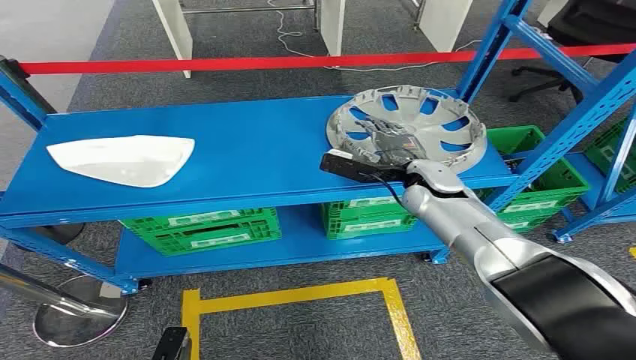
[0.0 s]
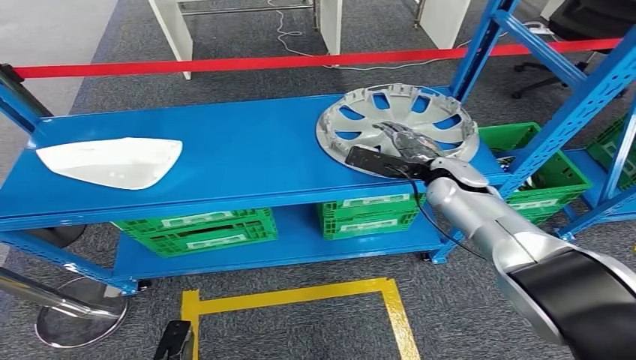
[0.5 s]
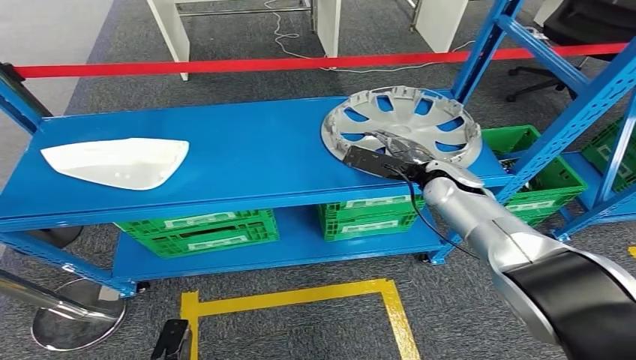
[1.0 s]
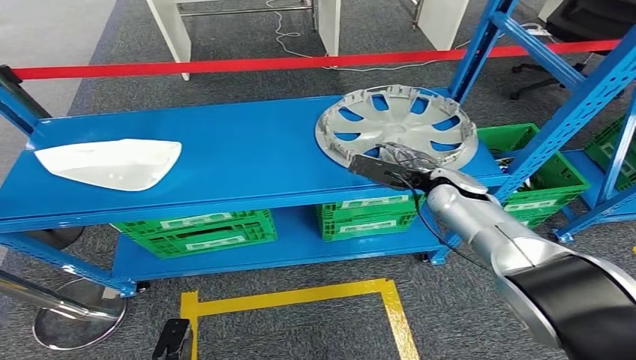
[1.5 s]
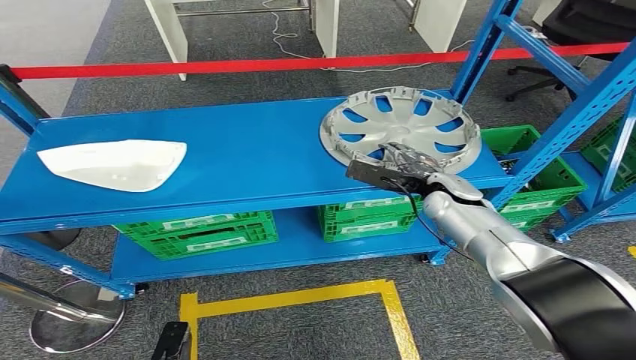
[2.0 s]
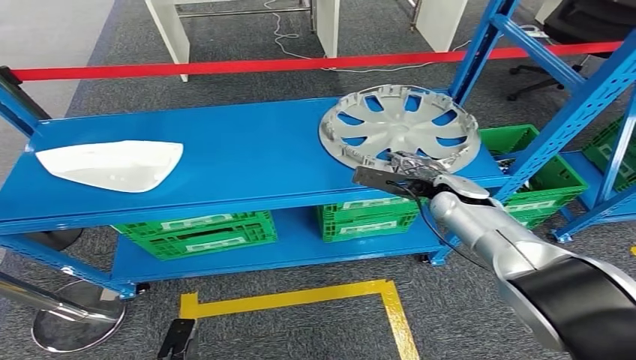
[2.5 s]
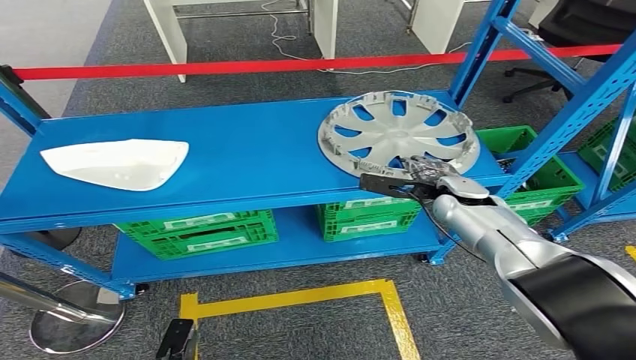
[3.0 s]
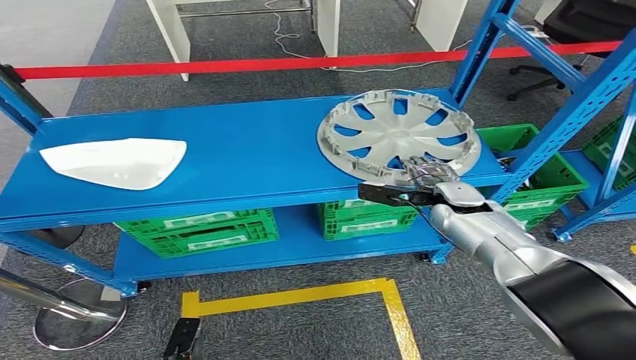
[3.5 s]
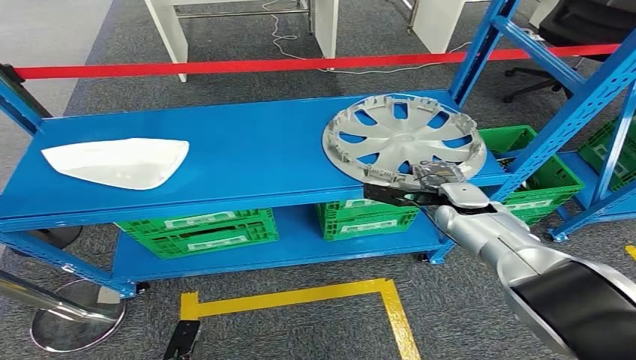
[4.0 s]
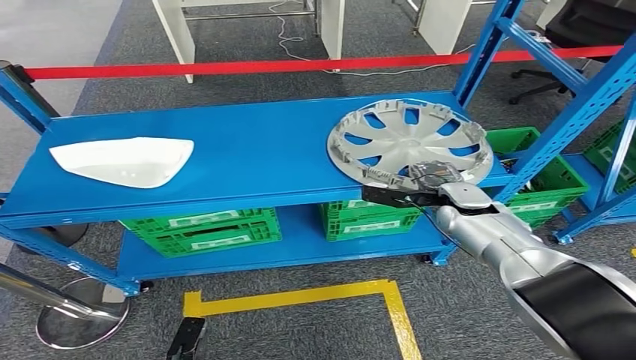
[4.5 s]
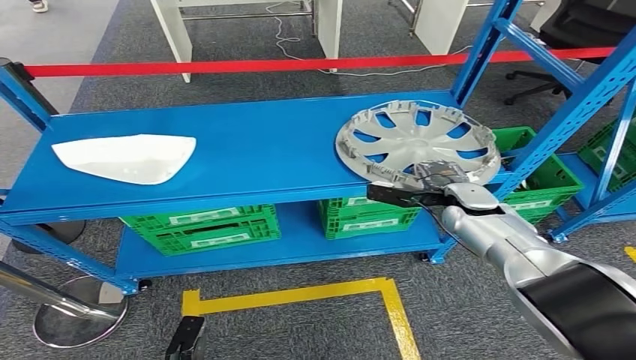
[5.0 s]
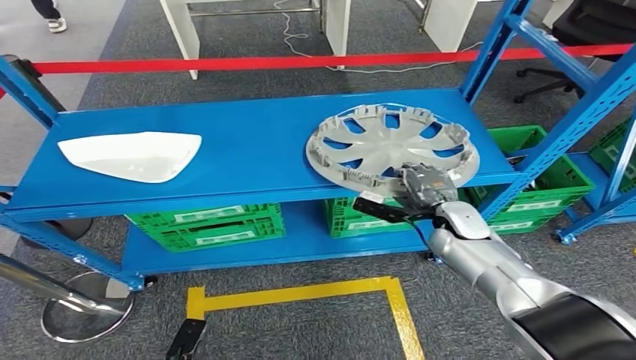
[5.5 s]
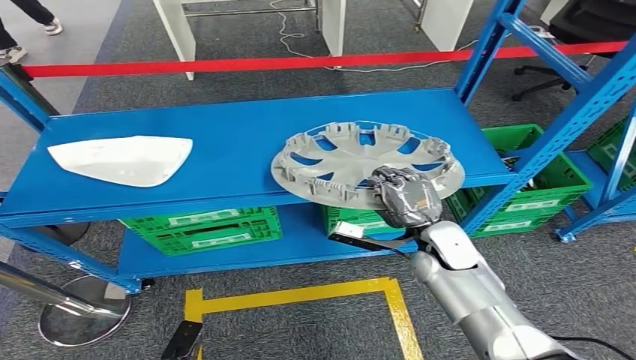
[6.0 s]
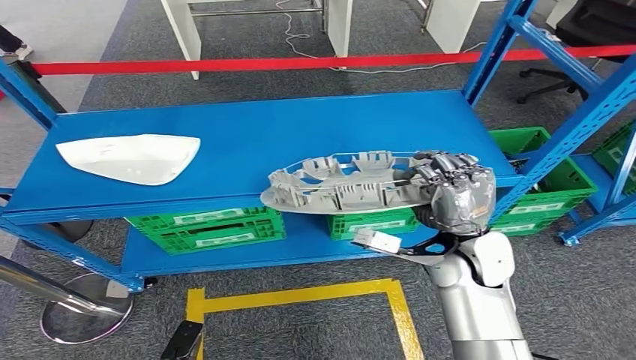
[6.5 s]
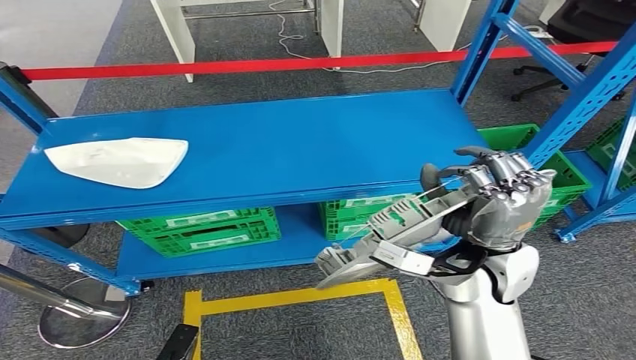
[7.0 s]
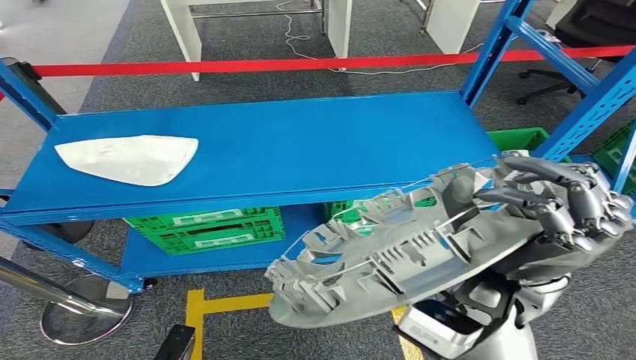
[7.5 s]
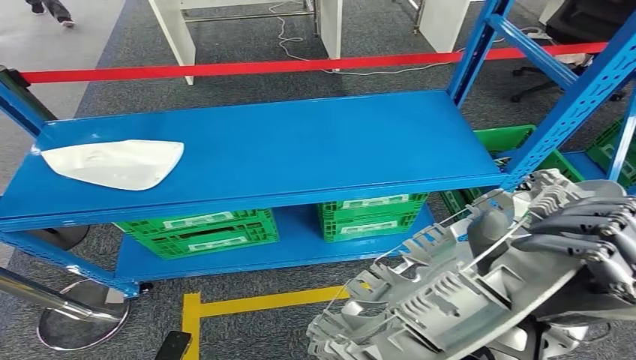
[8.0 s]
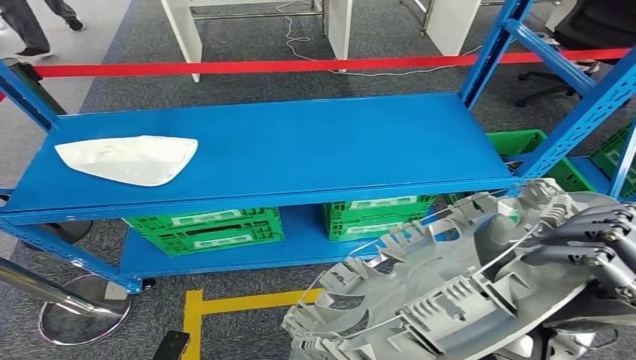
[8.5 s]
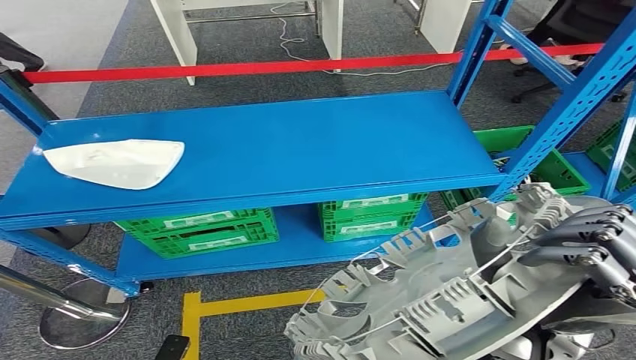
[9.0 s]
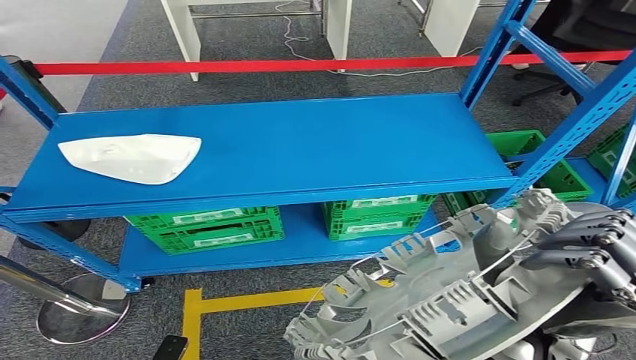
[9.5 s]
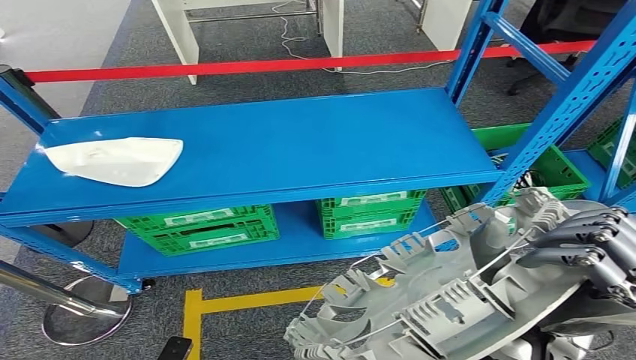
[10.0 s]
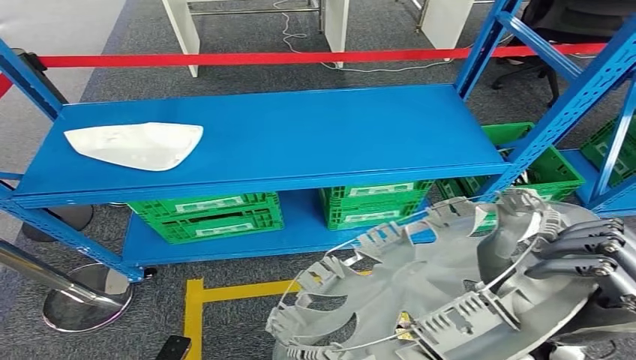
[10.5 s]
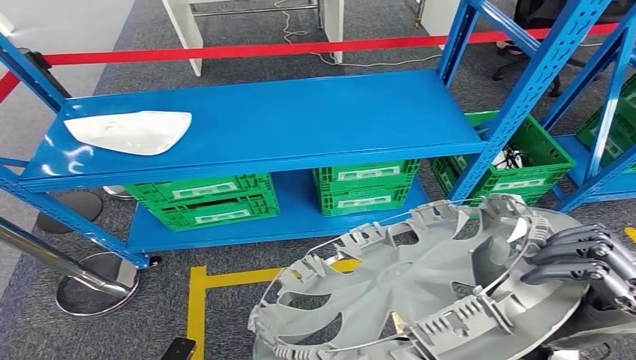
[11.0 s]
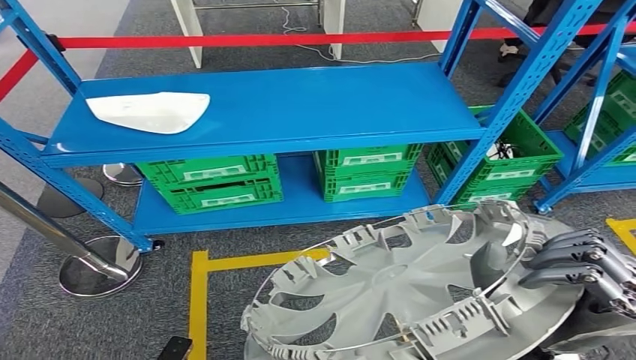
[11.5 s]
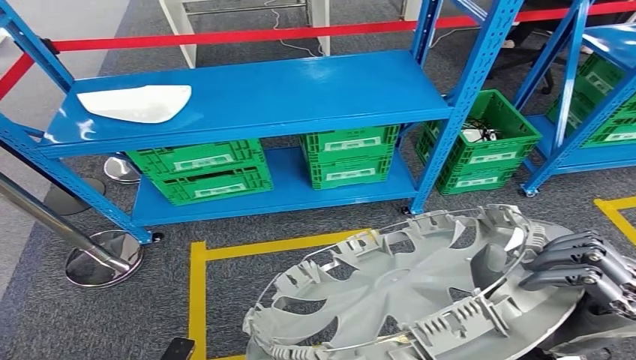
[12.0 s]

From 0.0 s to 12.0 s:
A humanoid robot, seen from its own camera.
Step, from 0.0 s to 6.5 s: Pick up the small component from the shelf.

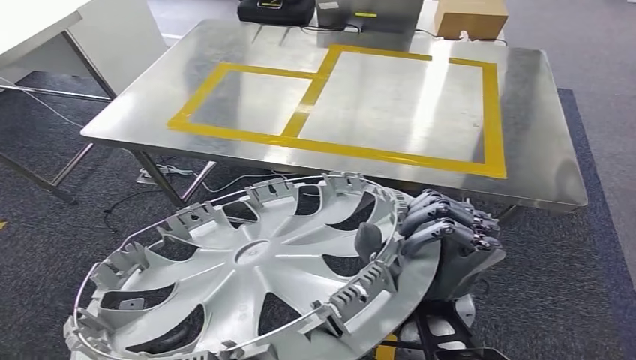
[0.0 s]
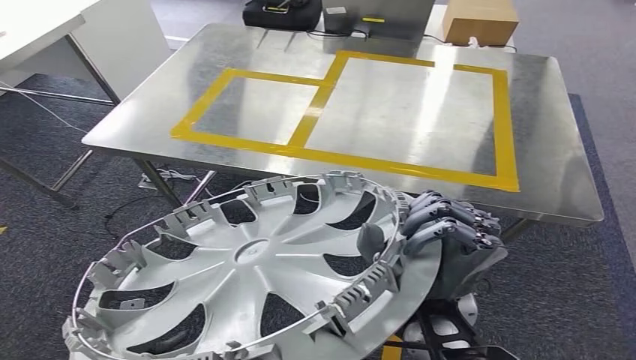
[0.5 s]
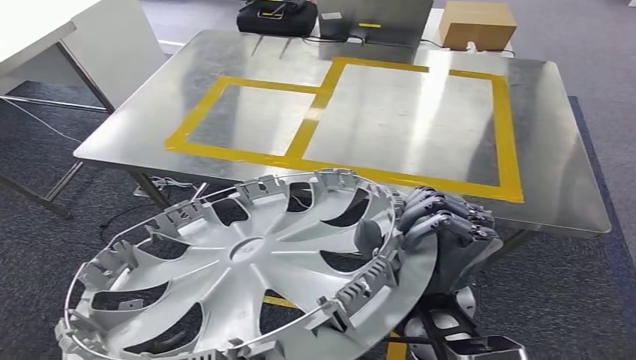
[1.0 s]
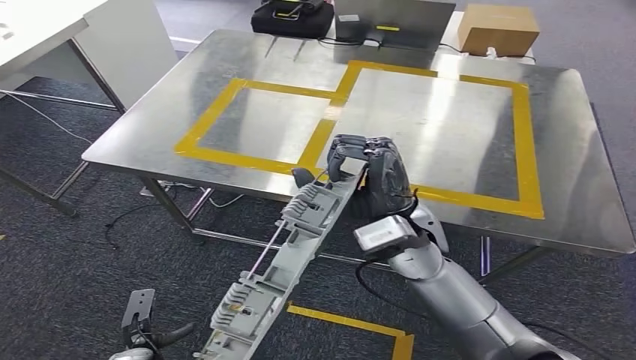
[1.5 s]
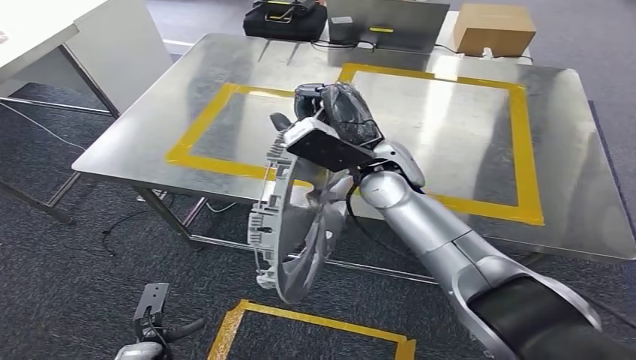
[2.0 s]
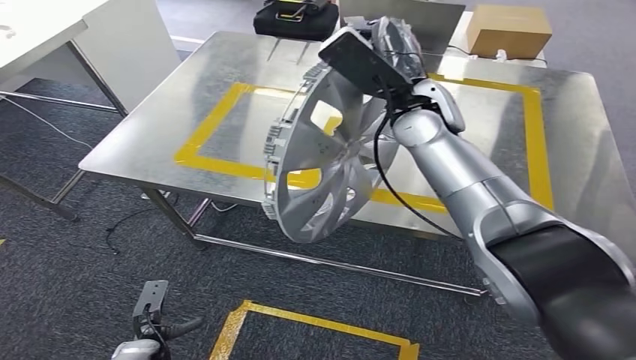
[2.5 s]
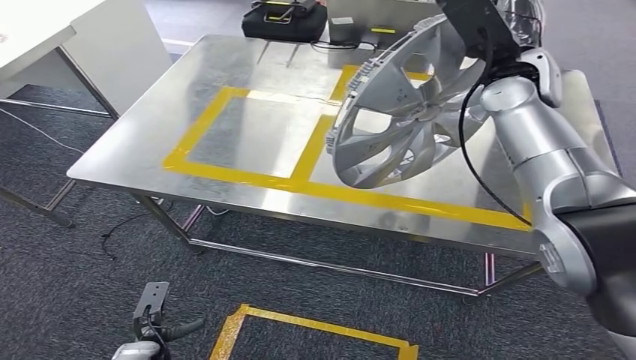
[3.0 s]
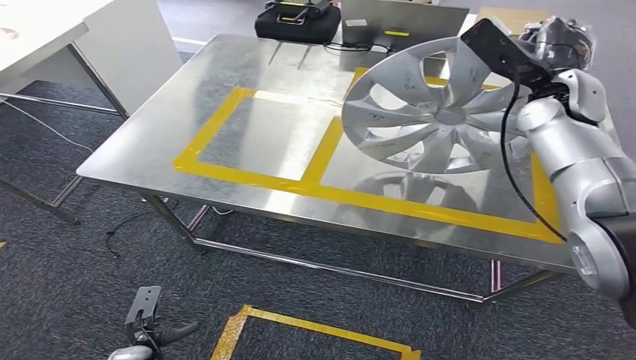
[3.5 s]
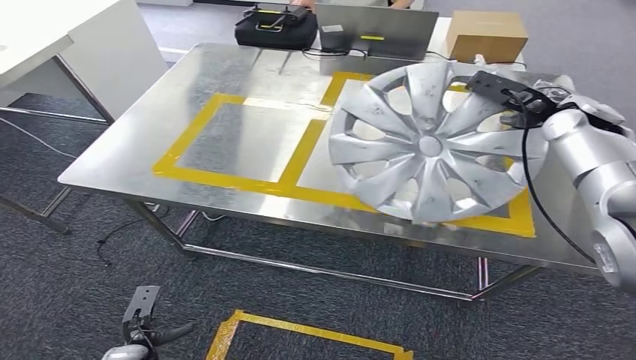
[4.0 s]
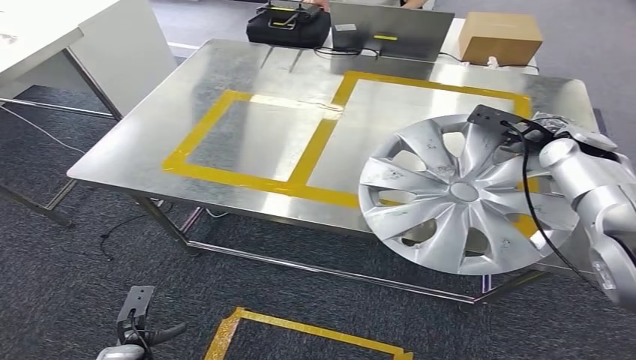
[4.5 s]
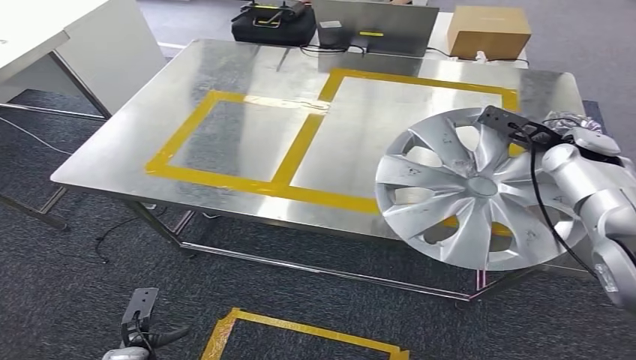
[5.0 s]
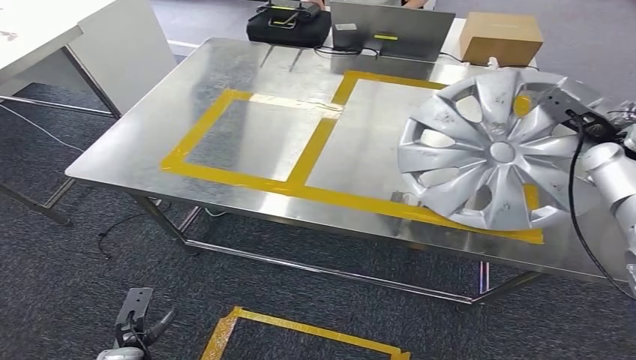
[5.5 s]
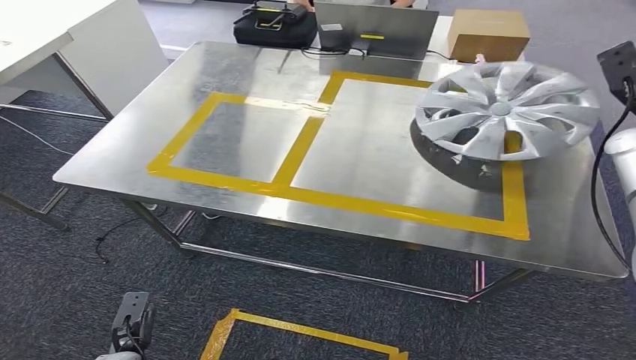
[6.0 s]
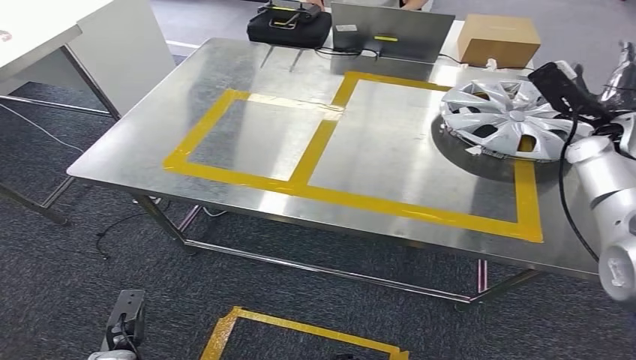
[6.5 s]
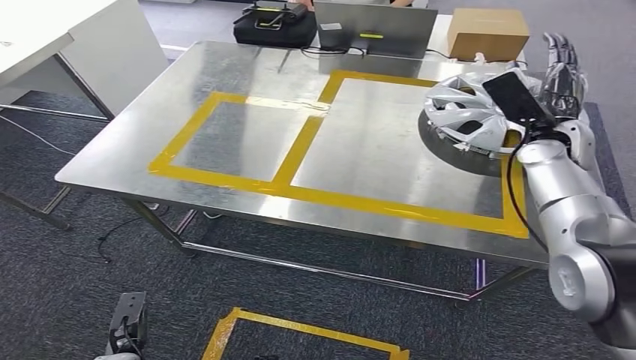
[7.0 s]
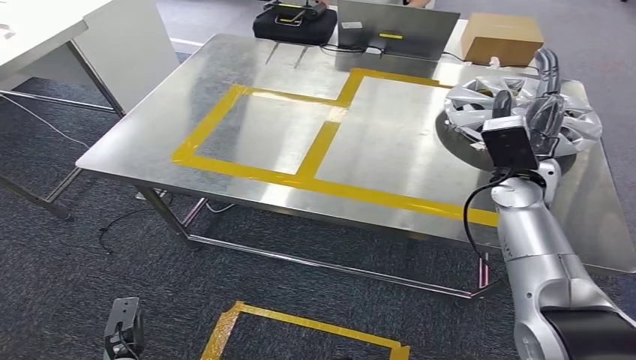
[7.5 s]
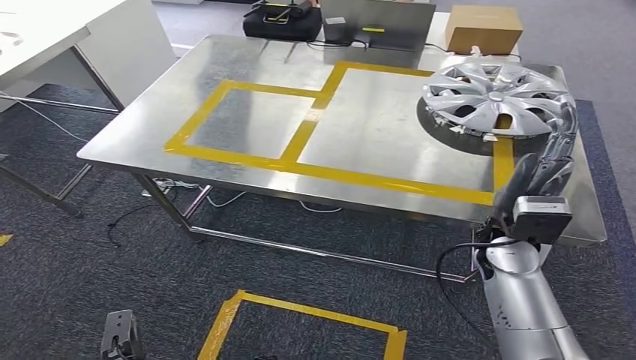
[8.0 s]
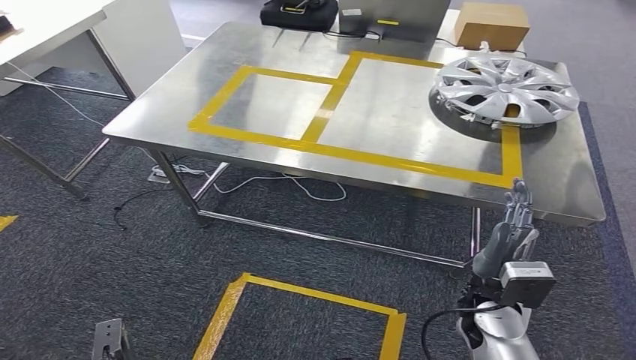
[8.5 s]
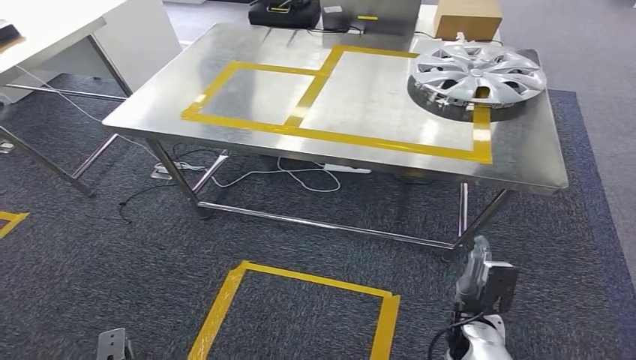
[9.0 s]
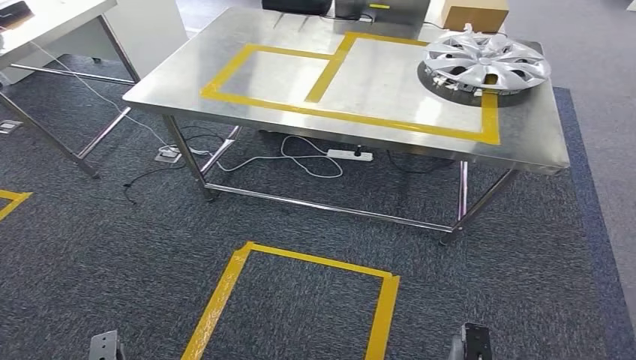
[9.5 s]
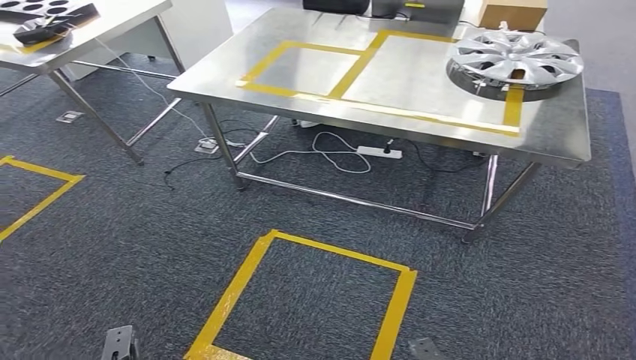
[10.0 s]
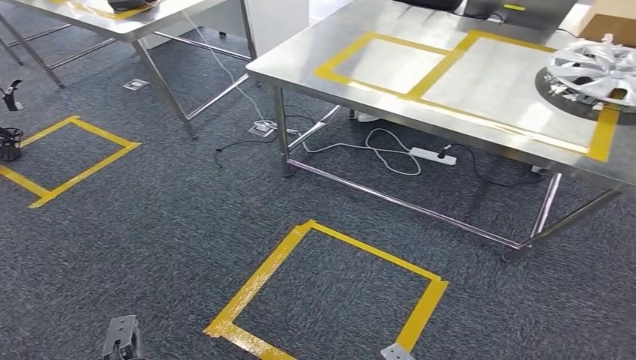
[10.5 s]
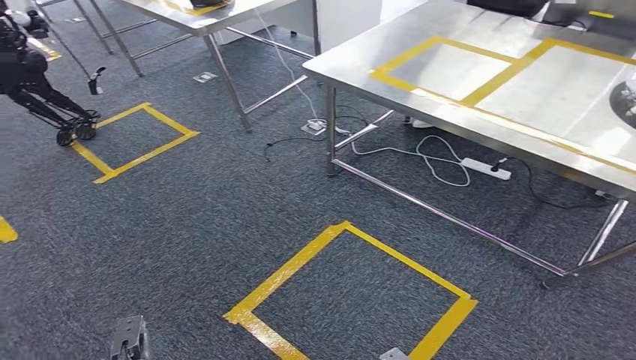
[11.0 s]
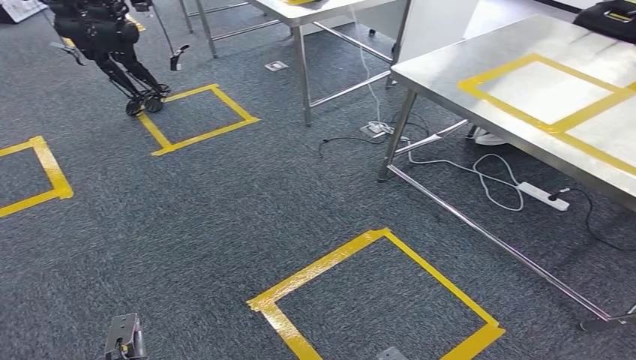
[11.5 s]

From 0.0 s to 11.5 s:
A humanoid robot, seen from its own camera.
Step, from 1.0 s to 9.5 s: Insert the small component into the corresponding slot on the workbench.
